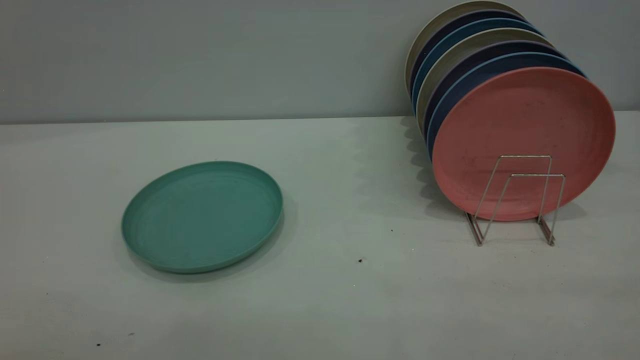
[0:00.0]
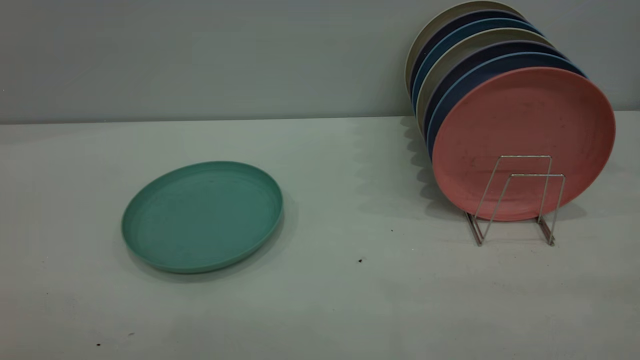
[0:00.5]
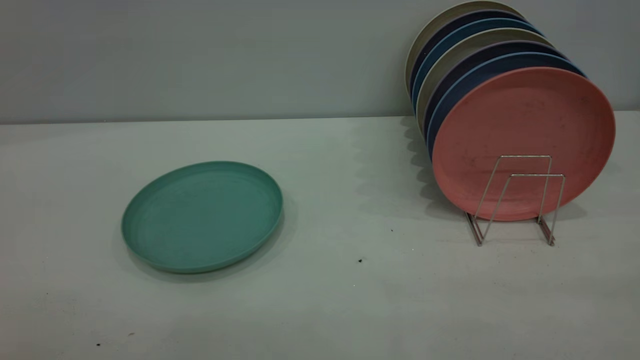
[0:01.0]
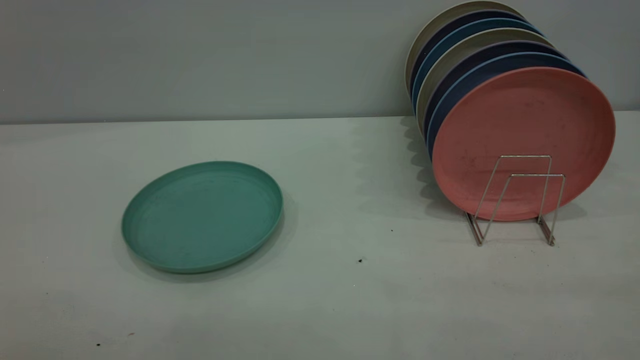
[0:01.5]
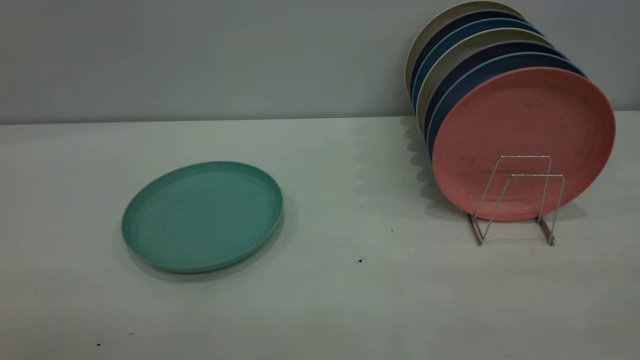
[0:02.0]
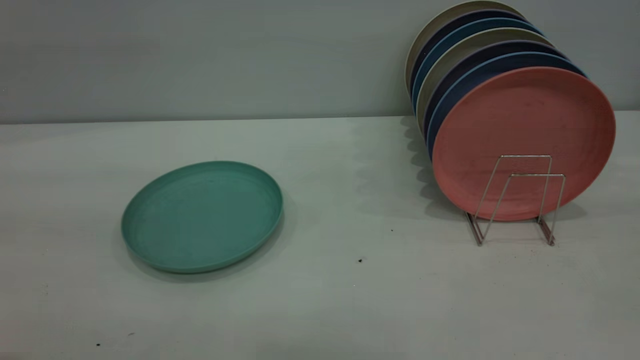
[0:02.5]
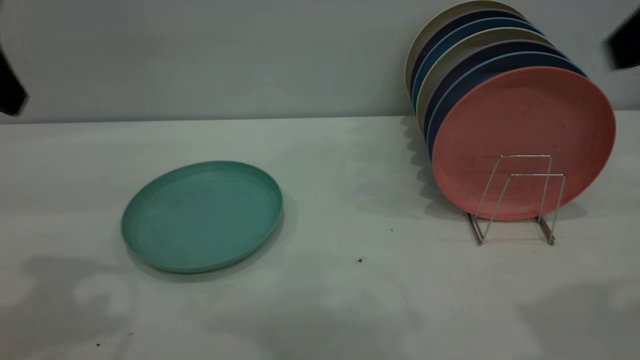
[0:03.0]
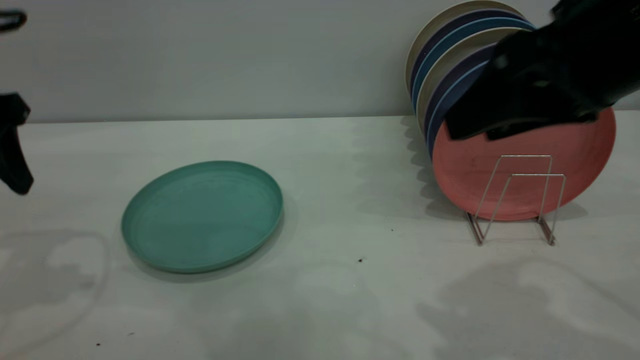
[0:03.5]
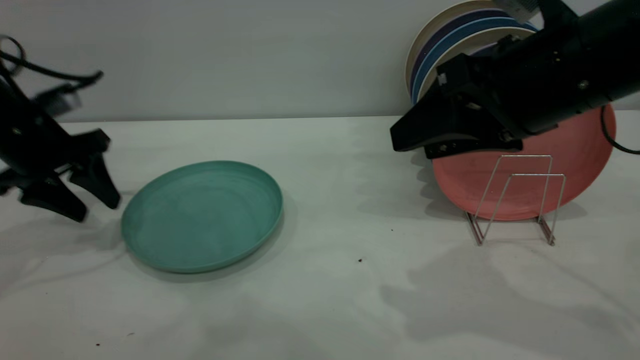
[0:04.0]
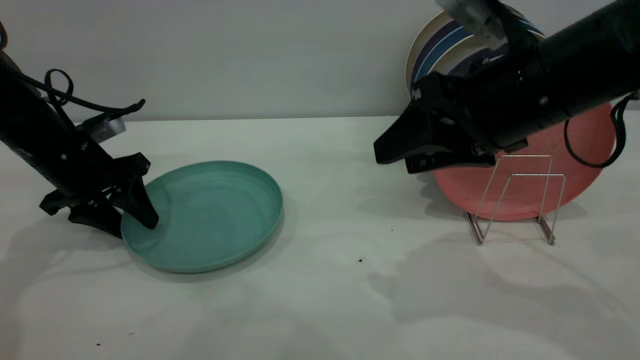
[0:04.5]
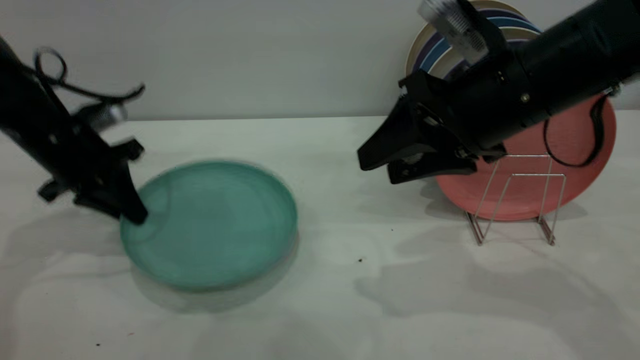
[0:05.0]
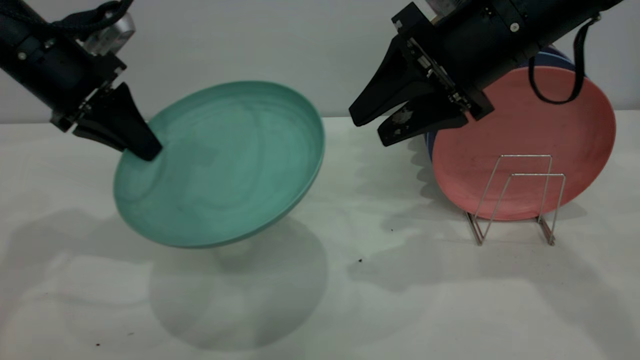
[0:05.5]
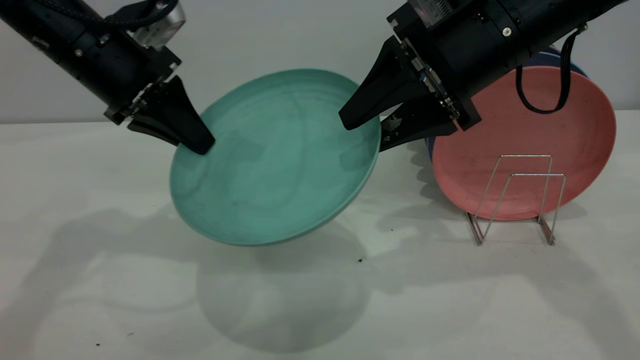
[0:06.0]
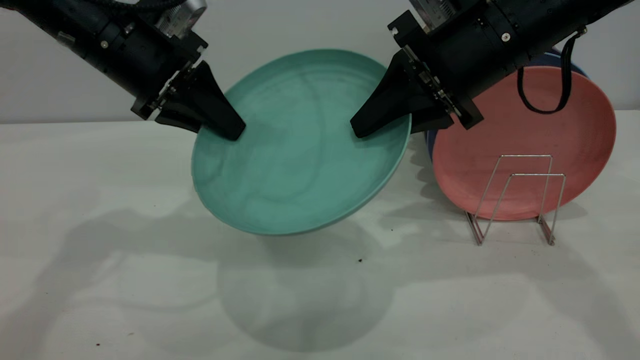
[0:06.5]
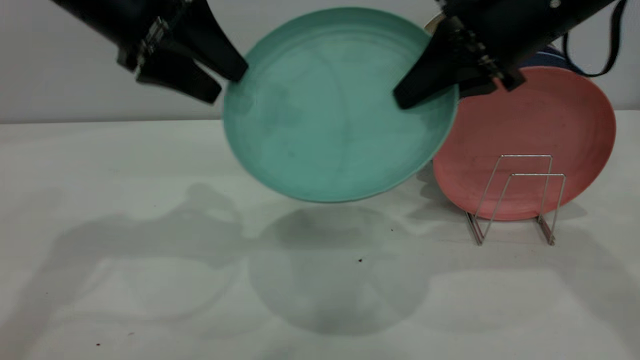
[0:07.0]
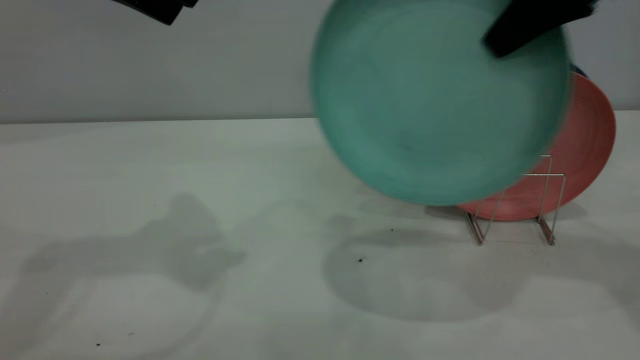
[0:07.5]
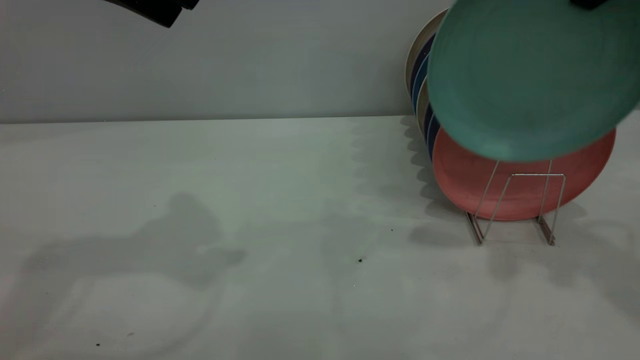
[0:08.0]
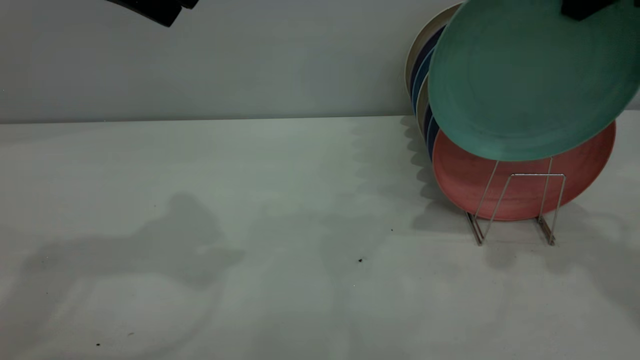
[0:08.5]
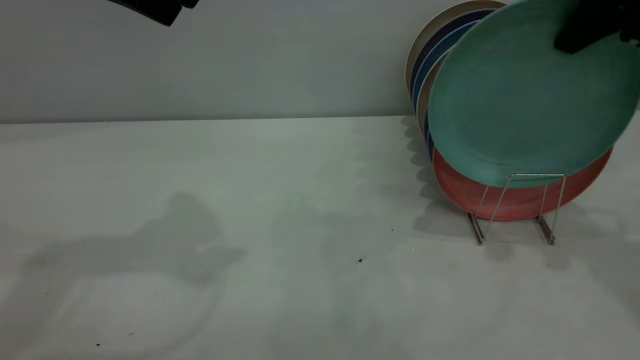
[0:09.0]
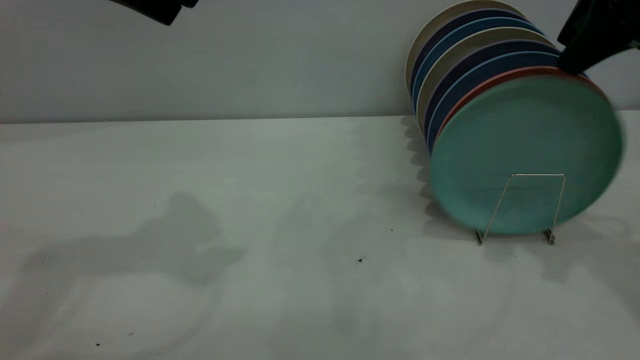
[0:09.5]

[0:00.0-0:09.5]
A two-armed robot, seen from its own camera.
Task of the whole recording: the left gripper grasp the green plate, the left gripper pass the green plate to the right gripper, and the right gripper place the green plate on the plate rack.
Step, 0:00.0 to 0:05.0: Pick up the plate with the left gripper.
Step, 0:05.5 to 0:07.0: Pass the plate from the left gripper to the right gripper.
0:02.0 to 0:04.0: The left gripper heads forward and downward, covering some 50 cm; the right gripper shifts about 35 cm forward and to the left.
0:04.0 to 0:05.5: The right gripper is displaced forward by approximately 5 cm. Meanwhile the left gripper travels upward and to the right by approximately 10 cm, and closes its fingers.
0:05.5 to 0:07.5: The left gripper shifts roughly 15 cm upward and to the right, and opens its fingers; the right gripper heads to the right and upward, covering approximately 15 cm, and closes.
0:07.5 to 0:09.5: The right gripper opens.

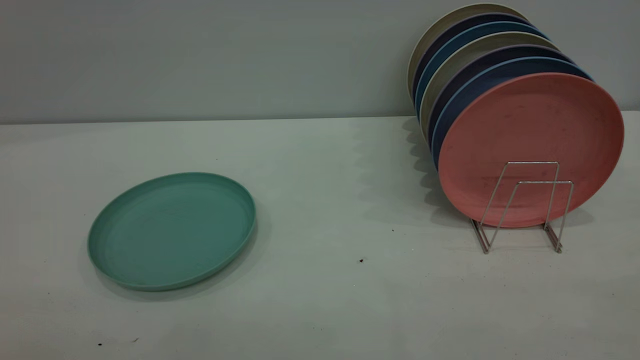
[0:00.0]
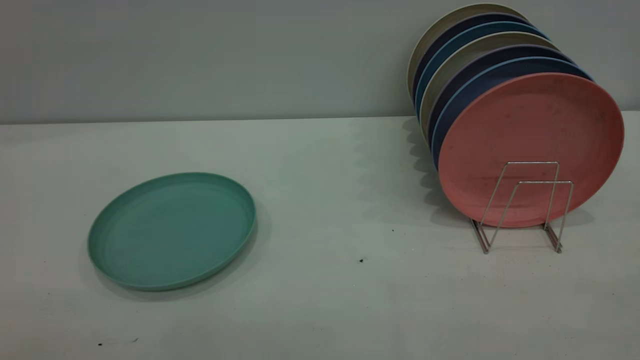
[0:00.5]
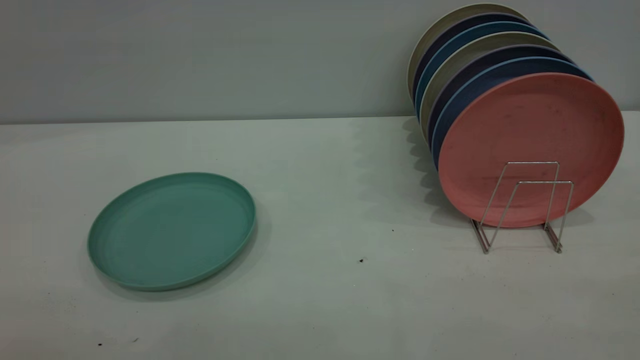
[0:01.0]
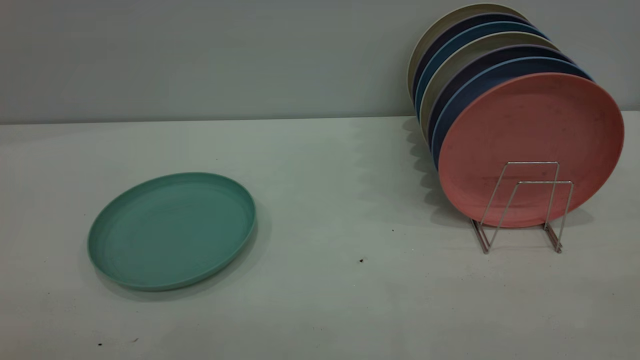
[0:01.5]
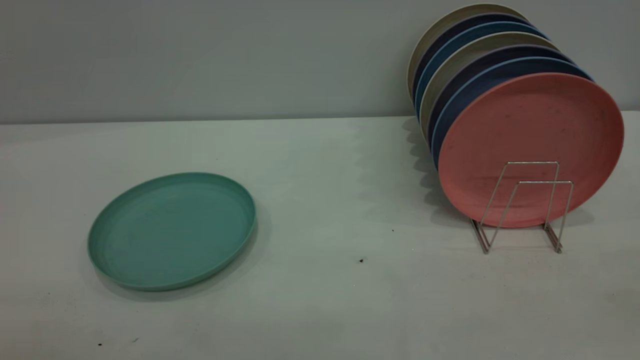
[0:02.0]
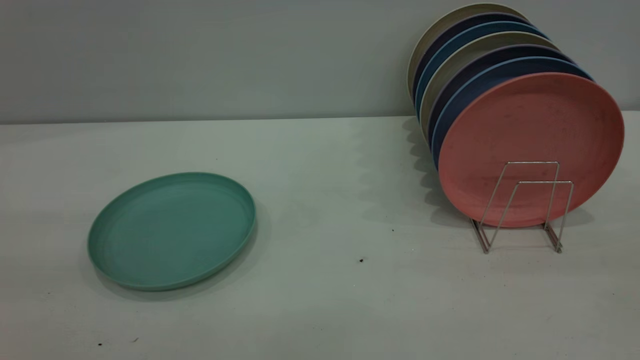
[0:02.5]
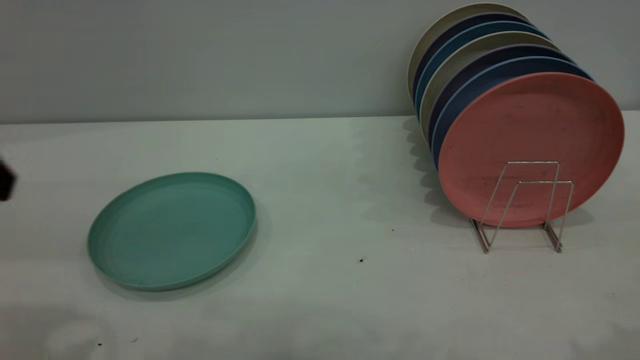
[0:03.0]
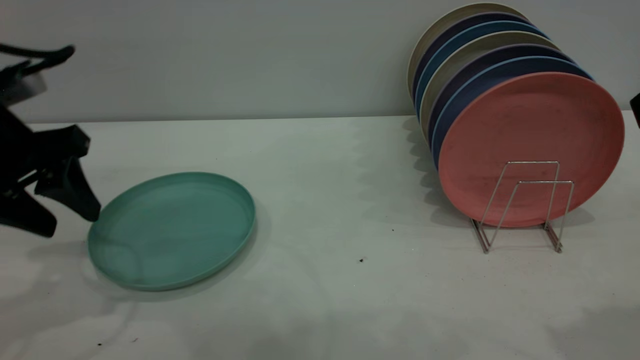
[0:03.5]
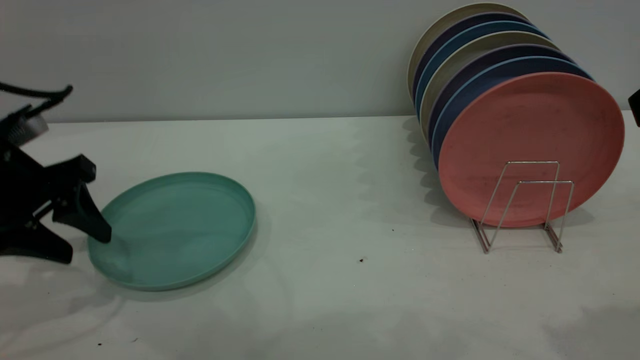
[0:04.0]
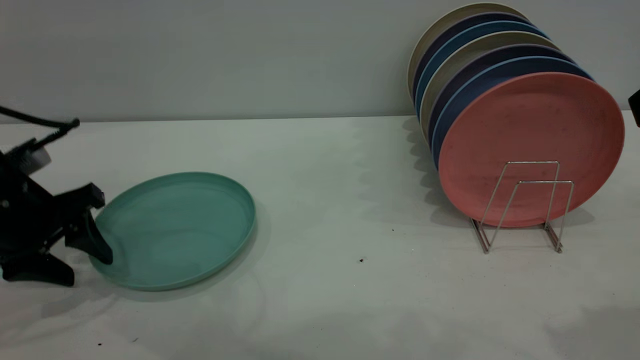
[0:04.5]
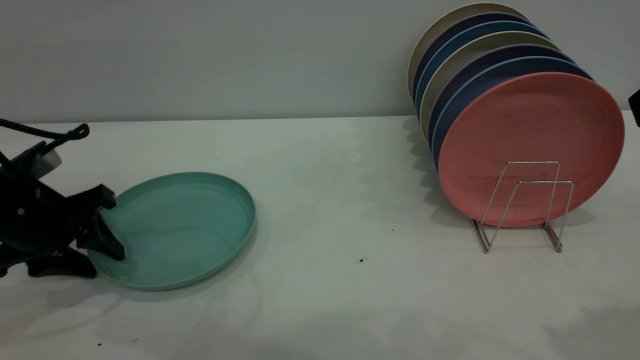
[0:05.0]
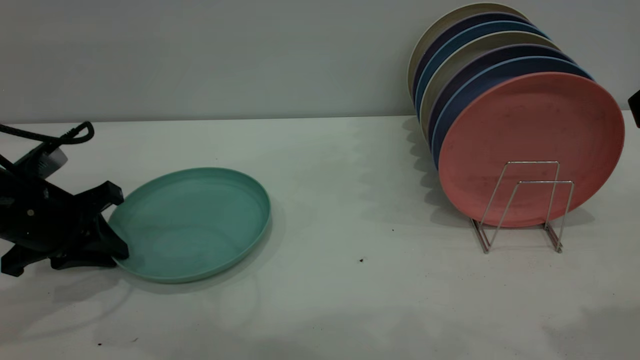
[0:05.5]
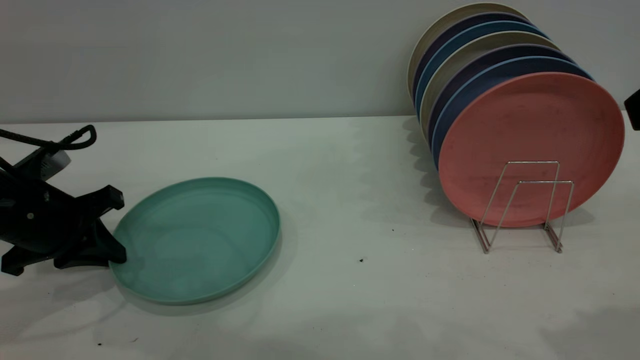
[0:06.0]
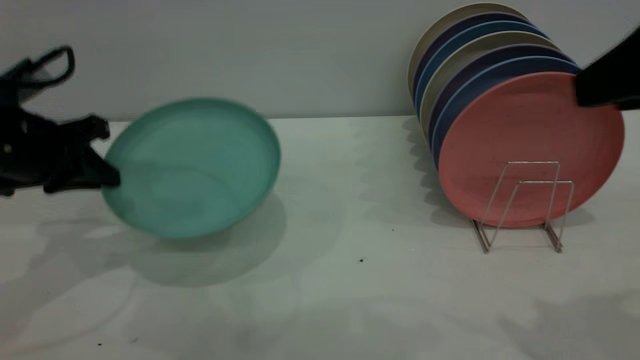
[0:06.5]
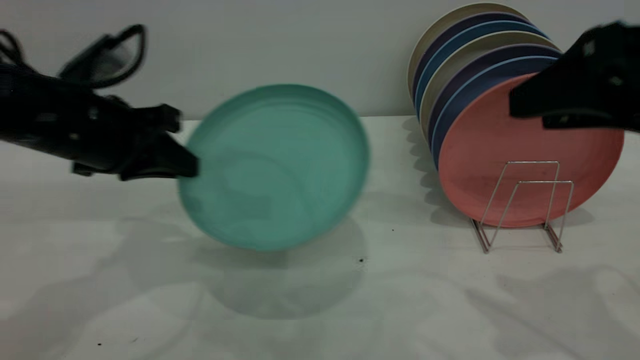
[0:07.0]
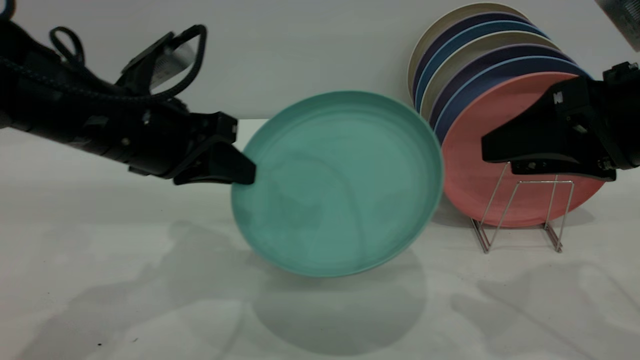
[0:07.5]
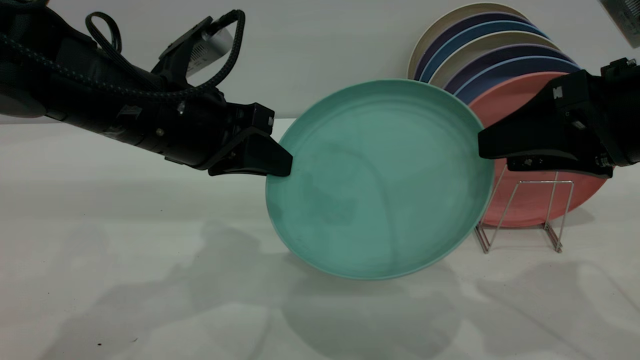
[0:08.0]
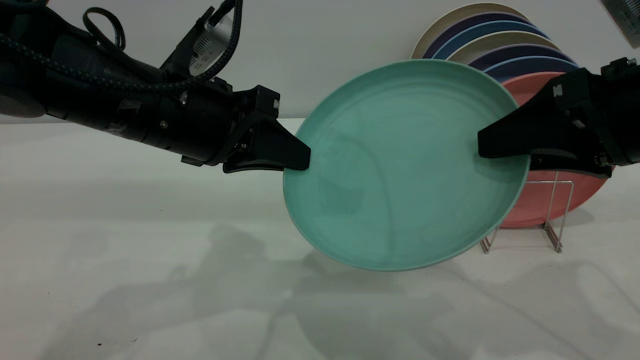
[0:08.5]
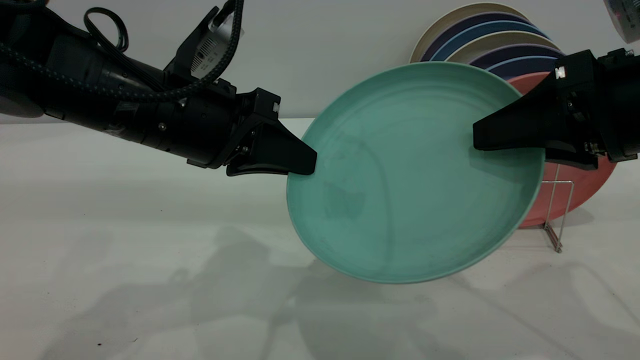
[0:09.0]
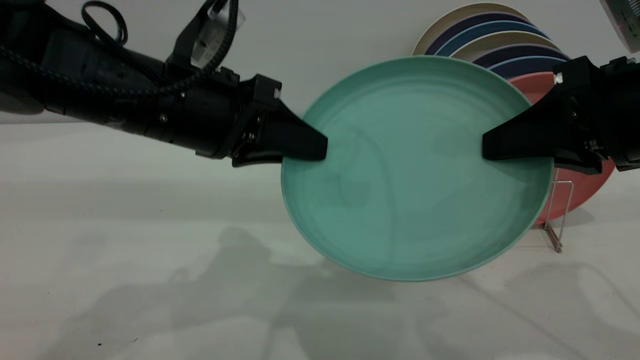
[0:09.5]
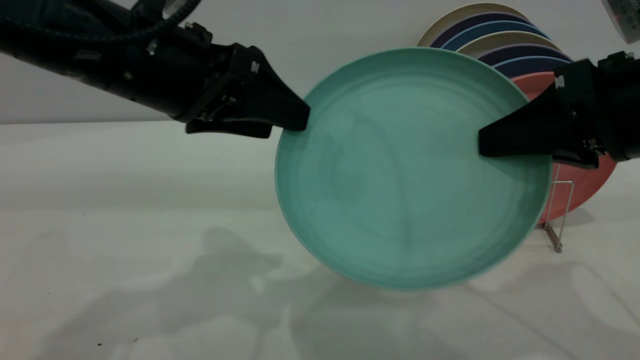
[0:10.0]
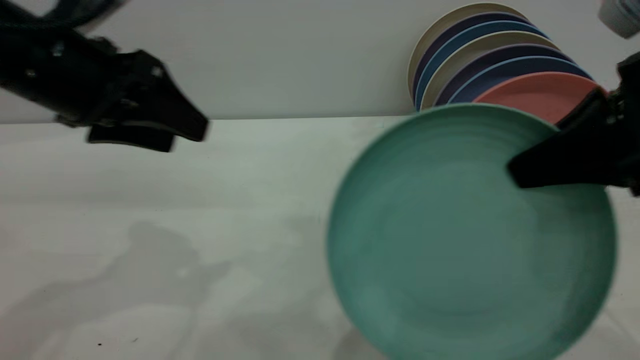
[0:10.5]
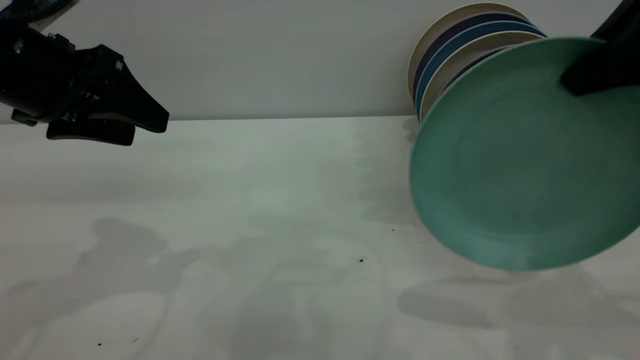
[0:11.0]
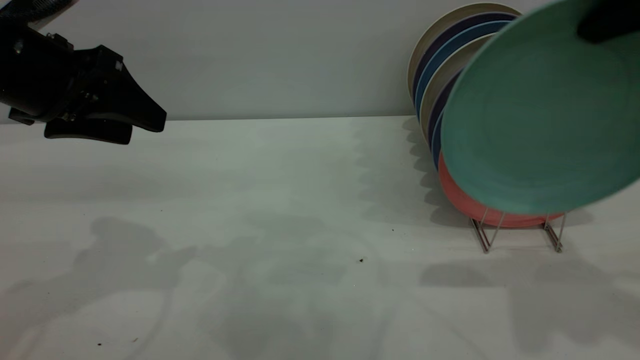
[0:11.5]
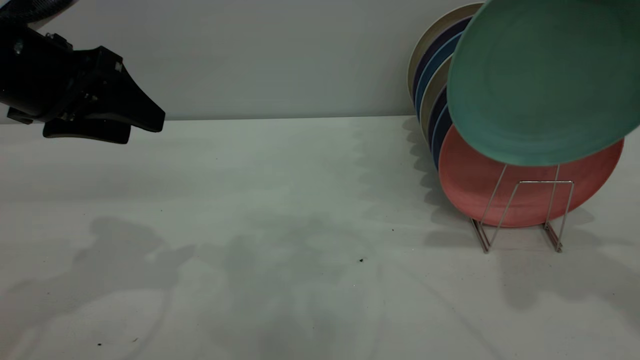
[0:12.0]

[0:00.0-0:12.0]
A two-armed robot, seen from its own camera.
Task of the whole recording: the left gripper grasp the green plate, the left gripper pass the green plate to the right gripper, and the right gripper place the green plate on the plate rack.
Step, 0:00.0 to 0:06.0: Pick up the plate with the left gripper.
Step, 0:06.5 to 0:10.0: Pass the plate from the left gripper to the right gripper.
0:02.0 to 0:04.0: The left gripper shifts roughly 40 cm forward and downward.
0:04.0 to 0:06.0: The left gripper heads downward, covering some 5 cm, and closes.
0:06.0 to 0:08.0: The right gripper goes some 10 cm downward and forward. The left gripper moves to the right and upward, some 20 cm.
0:08.0 to 0:10.0: The right gripper closes its fingers; the left gripper travels upward by roughly 5 cm, and opens.
0:10.0 to 0:12.0: The right gripper heads upward and forward, covering some 15 cm, while the left gripper goes approximately 10 cm to the left.
